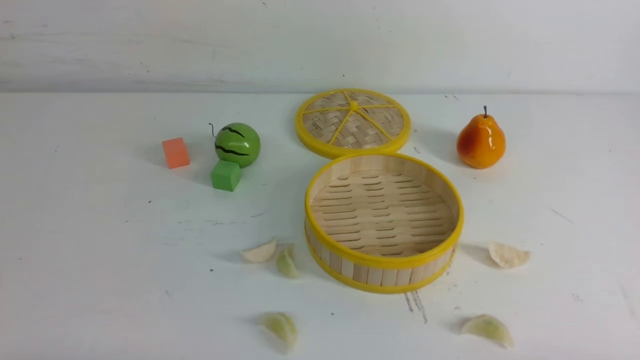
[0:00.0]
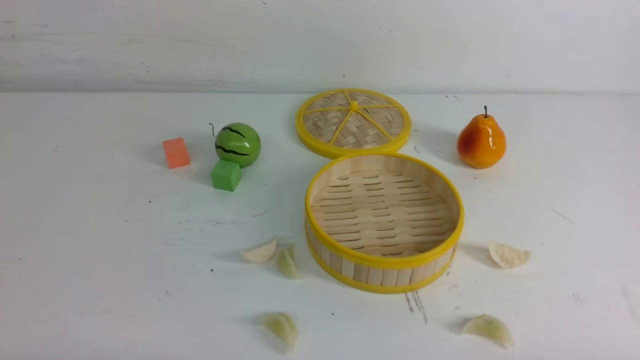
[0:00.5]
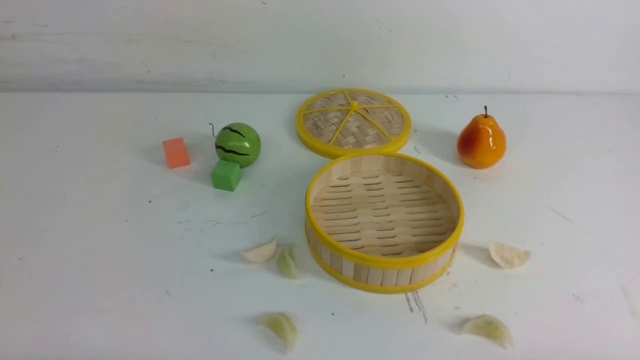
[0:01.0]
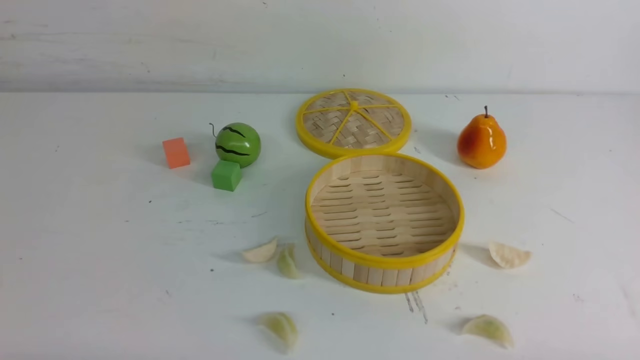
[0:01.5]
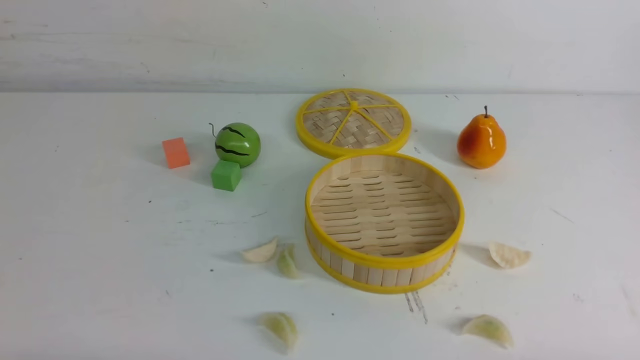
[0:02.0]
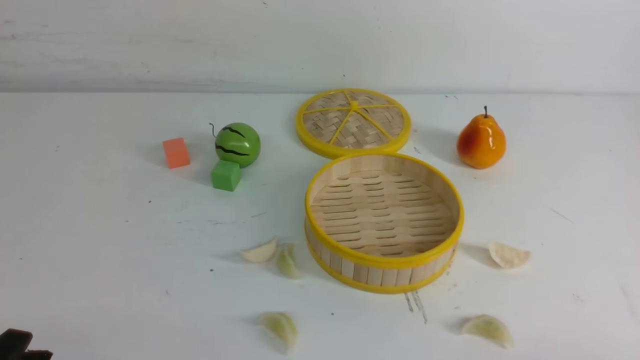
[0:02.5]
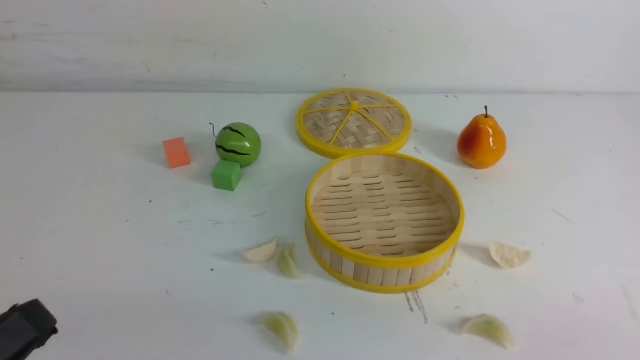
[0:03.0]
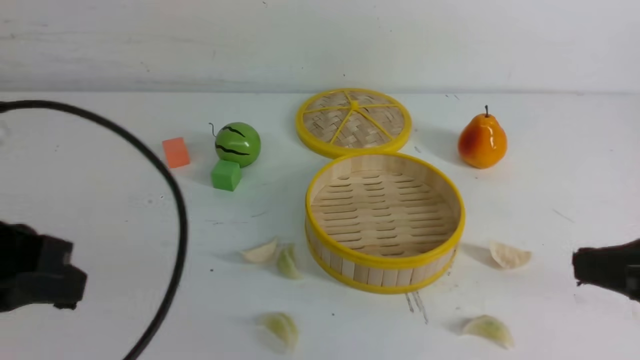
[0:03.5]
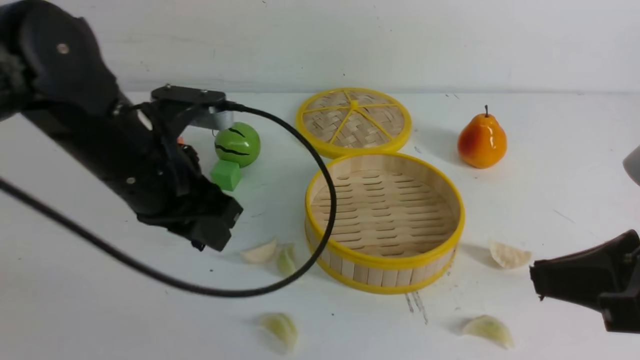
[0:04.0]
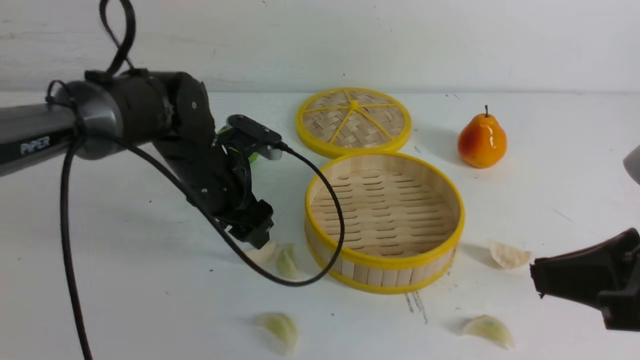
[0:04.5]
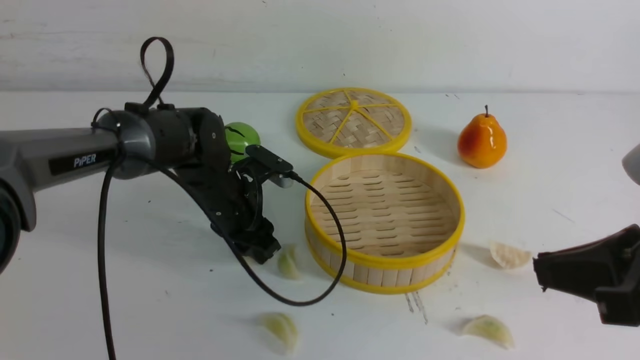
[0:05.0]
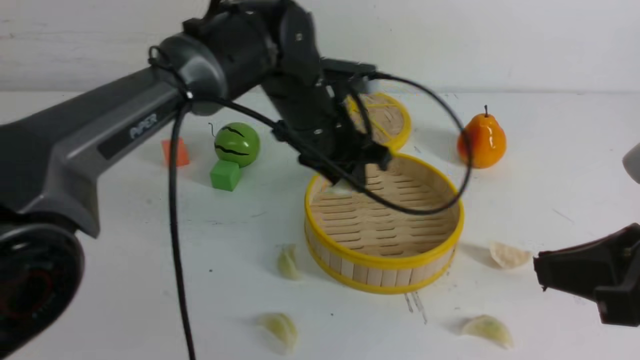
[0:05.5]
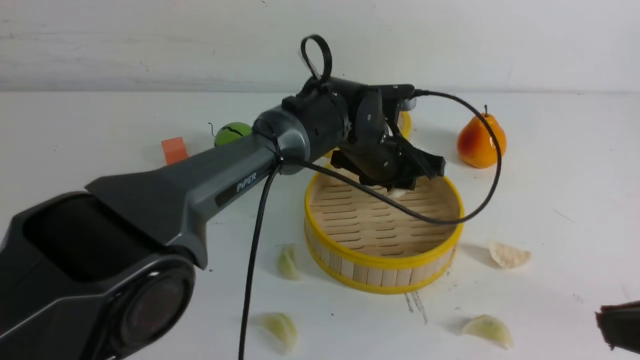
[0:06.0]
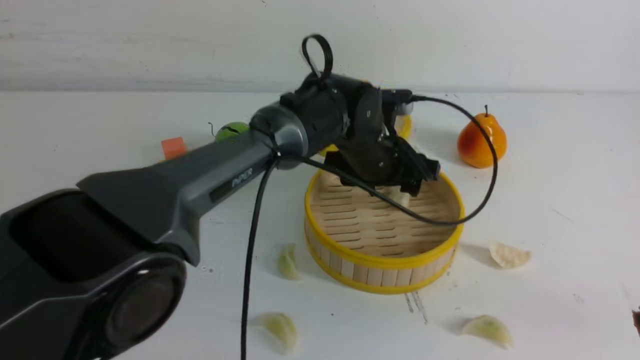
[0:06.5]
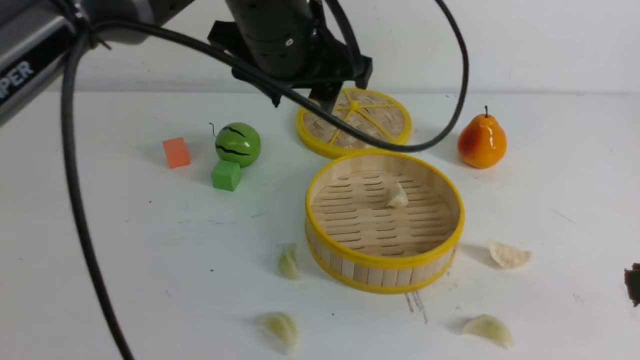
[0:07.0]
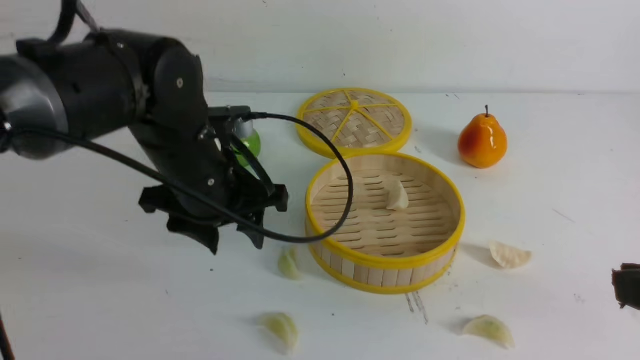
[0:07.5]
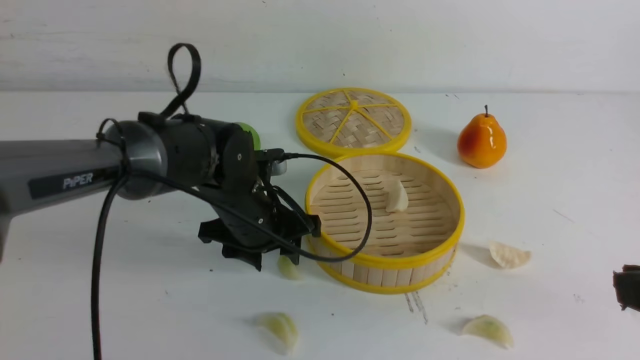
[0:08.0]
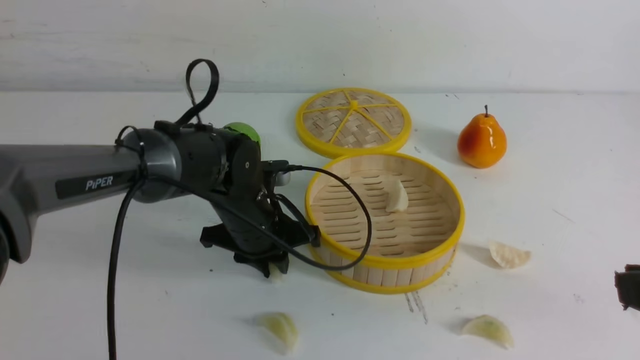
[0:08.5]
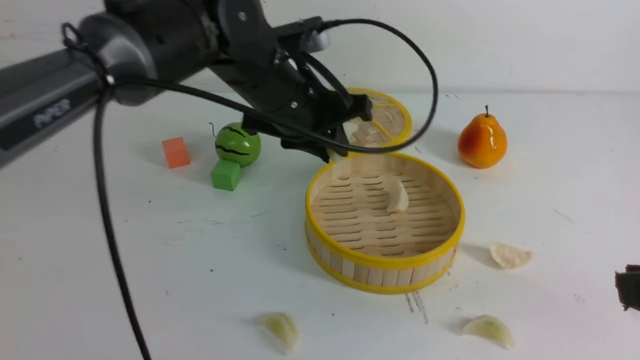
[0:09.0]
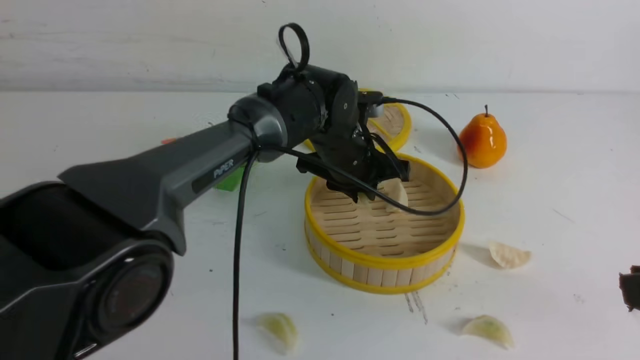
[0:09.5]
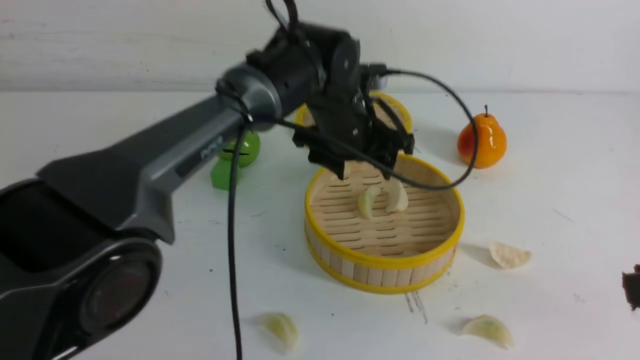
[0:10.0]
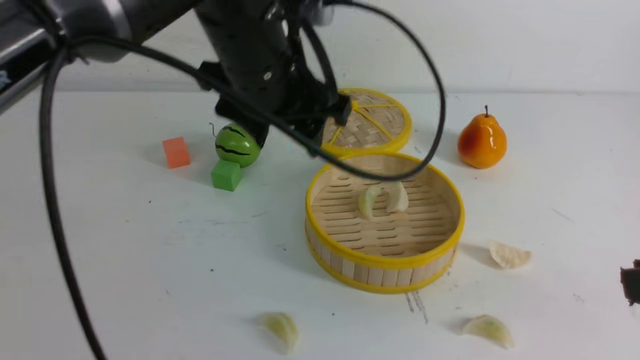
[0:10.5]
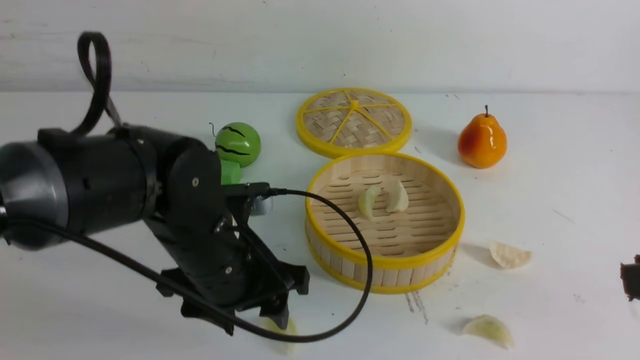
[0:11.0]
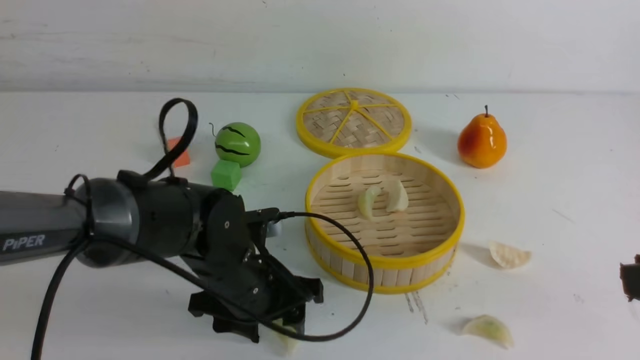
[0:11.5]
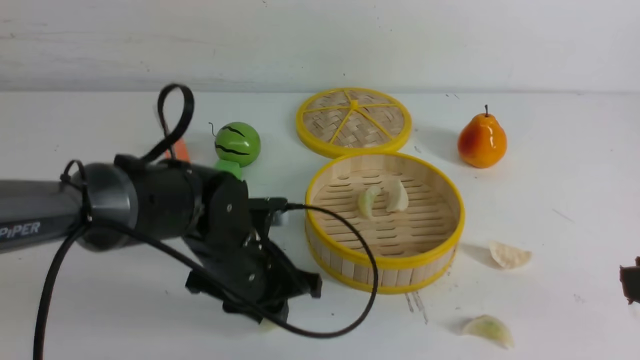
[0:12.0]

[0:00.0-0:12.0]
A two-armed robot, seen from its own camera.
Task of the whole recording: put the dumplings into the steamer on the white table.
Step, 0:00.0 to 0:05.0: use the left arm to grab a dumpling.
Step, 0:05.5 to 0:06.5: use the left arm to put the dumpling into the steamer.
Step, 0:07.0 to 0:08.5: use the left arm to grab a dumpling.
Step, 0:09.0 to 0:10.0: use the left arm to put the dumpling into the steamer.
Step, 0:10.5 to 0:12.0: use the left arm to grab a dumpling.
0:02.0 to 0:04.0: The left gripper heads forward, upward and to the right, covering some 30 cm, and closes, then reopens, while the right gripper goes some 20 cm upward, forward and to the left, and closes.
0:04.0 to 0:06.0: The left gripper shifts roughly 25 cm to the right, forward and downward, and opens, then closes again.
0:06.0 to 0:08.0: The left gripper is displaced to the left and backward by roughly 15 cm, and moves roughly 15 cm upward and comes back.
0:08.0 to 0:10.0: The left gripper travels upward, to the right and forward by some 15 cm, and closes, then opens again.
0:10.0 to 0:12.0: The left gripper goes approximately 15 cm backward, downward and to the left, and closes up.

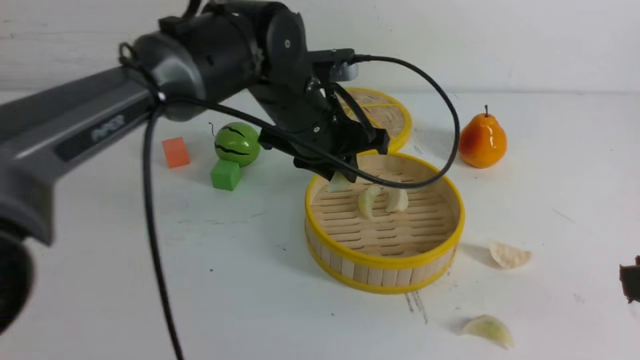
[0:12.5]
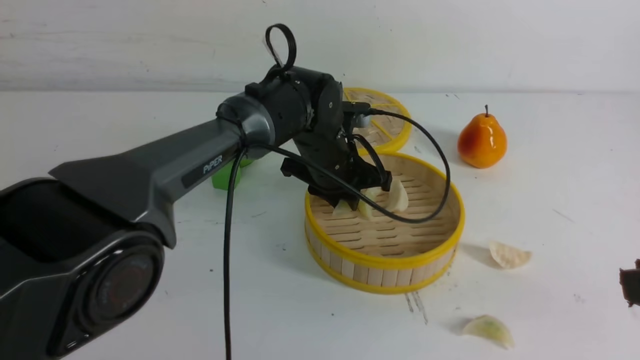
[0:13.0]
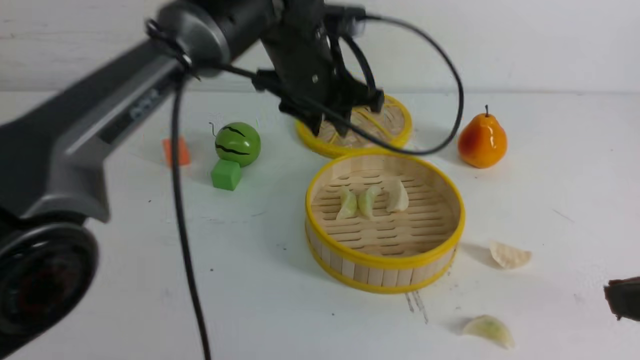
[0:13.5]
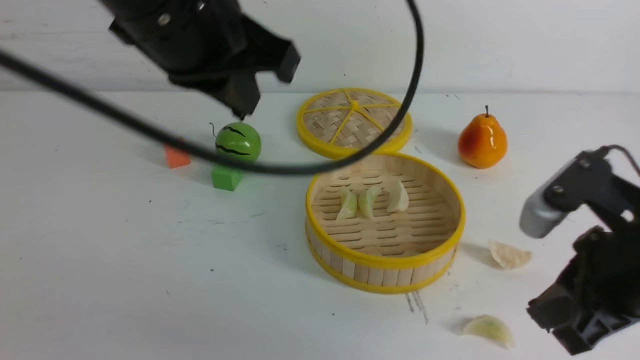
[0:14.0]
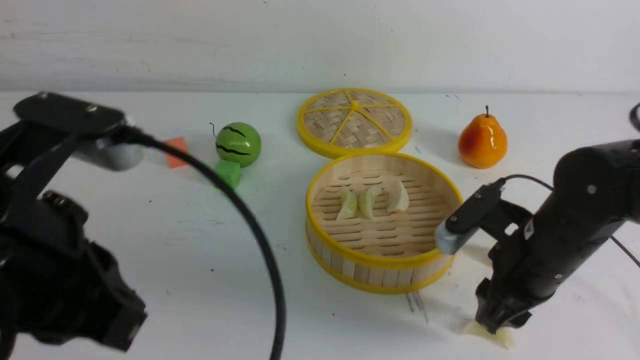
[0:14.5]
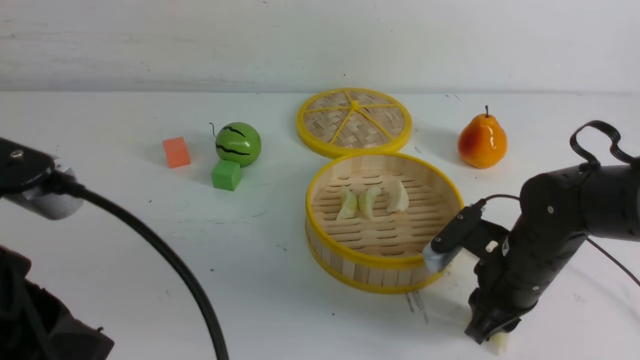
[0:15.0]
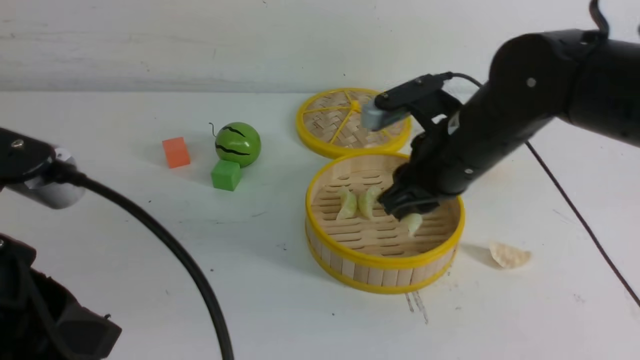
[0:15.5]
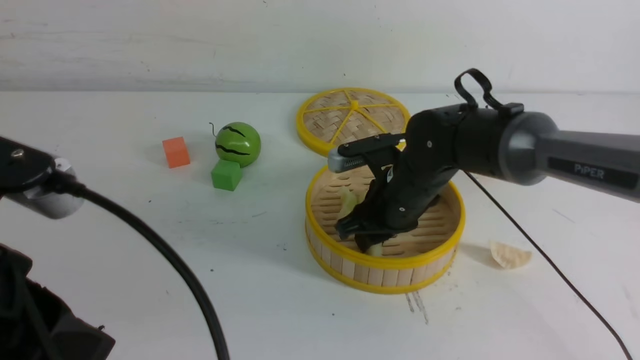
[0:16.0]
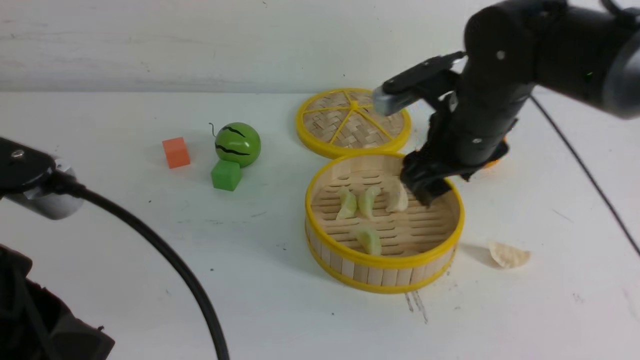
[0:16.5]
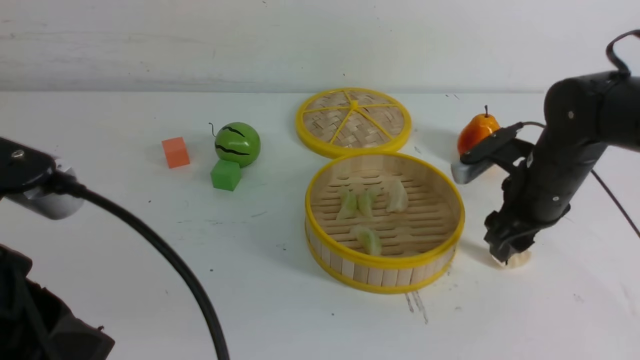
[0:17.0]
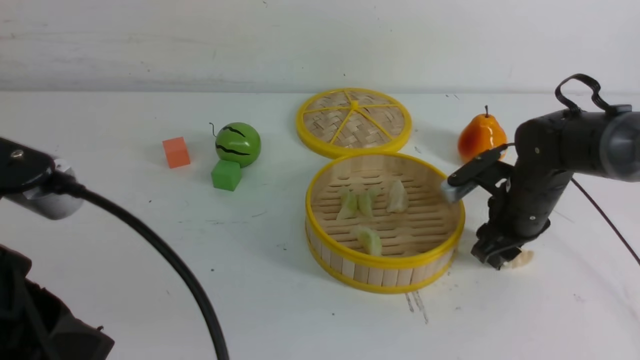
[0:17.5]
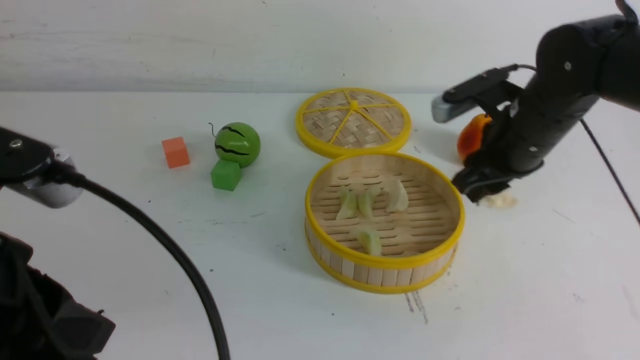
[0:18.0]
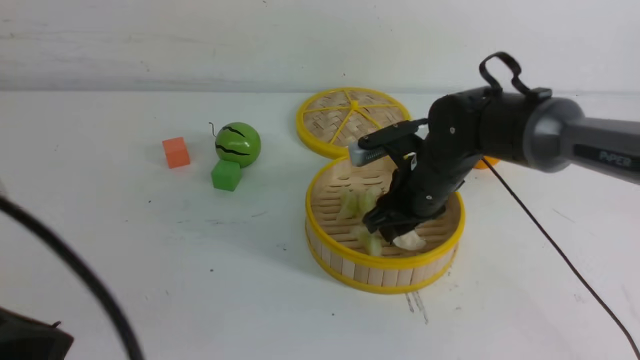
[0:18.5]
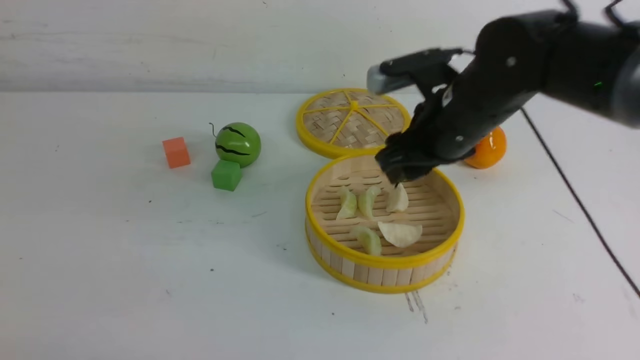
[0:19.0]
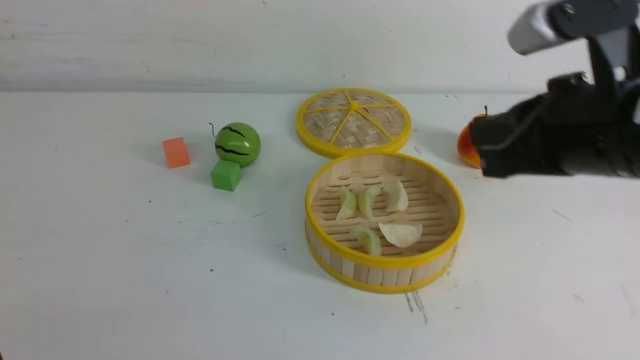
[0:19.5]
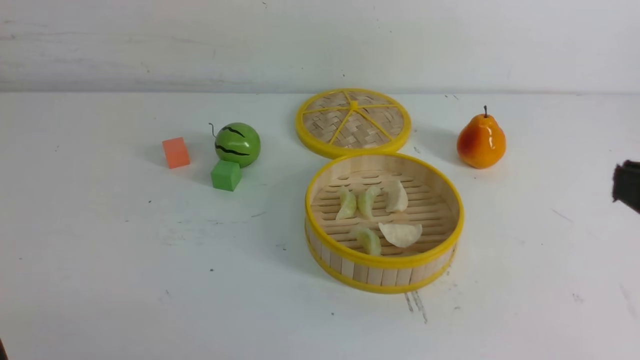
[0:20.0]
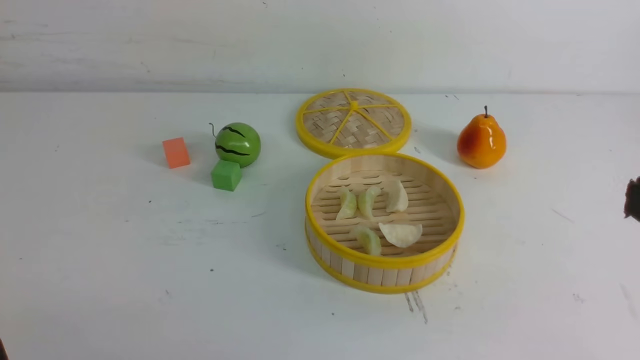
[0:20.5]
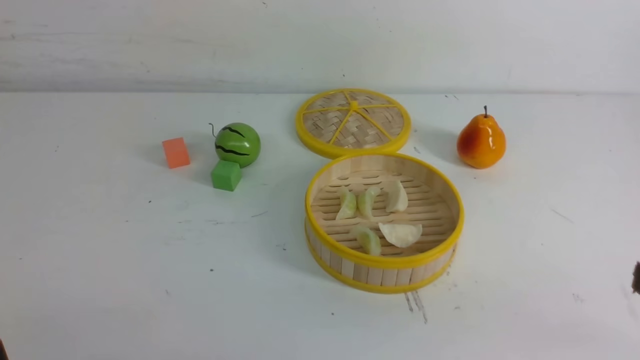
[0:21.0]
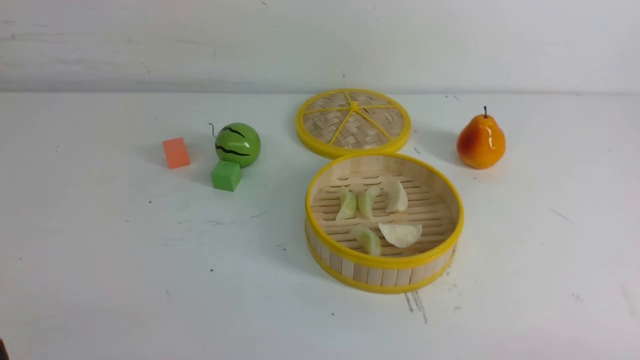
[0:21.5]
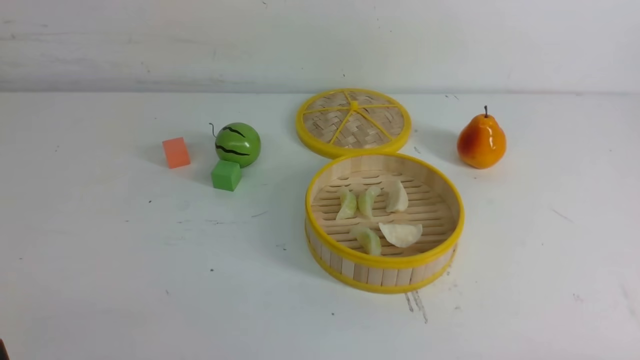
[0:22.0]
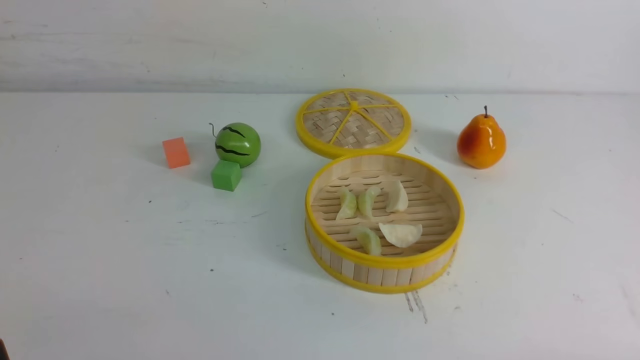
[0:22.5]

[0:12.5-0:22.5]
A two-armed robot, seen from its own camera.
Task of the whole recording: put the dumplings into the steamer on the white table.
Step, 0:13.5 to 0:15.0: use the right arm to grab a dumpling.
Step, 0:15.5 to 0:16.0: use the right arm to put the dumpling into the steamer.
Step, 0:16.5 to 0:17.5: use the right arm to grab a dumpling.
Step, 0:18.0 to 0:18.5: use the right arm to put the dumpling into the steamer.
0:12.5 to 0:14.5: The left gripper shifts about 30 cm backward and to the left, and closes up. The right gripper travels forward and downward by about 25 cm.
0:14.5 to 0:16.5: The right gripper shifts roughly 15 cm forward, upward and to the left.
0:16.5 to 0:18.5: The right gripper is displaced downward by some 5 cm, and reaches roughly 10 cm to the right, then returns.
0:18.5 to 0:20.5: The right gripper moves backward, upward and to the right, about 35 cm, and closes. The left gripper heads downward, covering some 10 cm.
